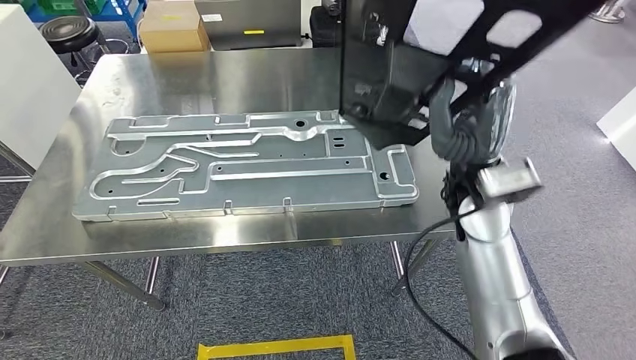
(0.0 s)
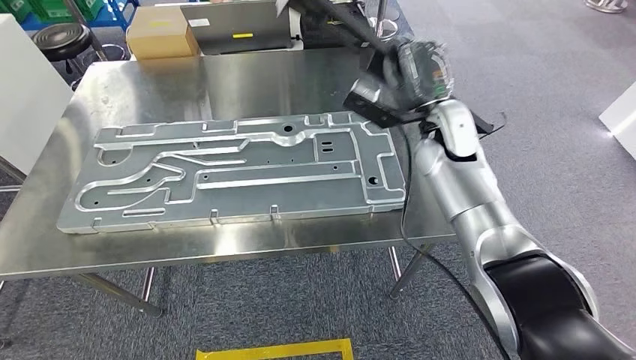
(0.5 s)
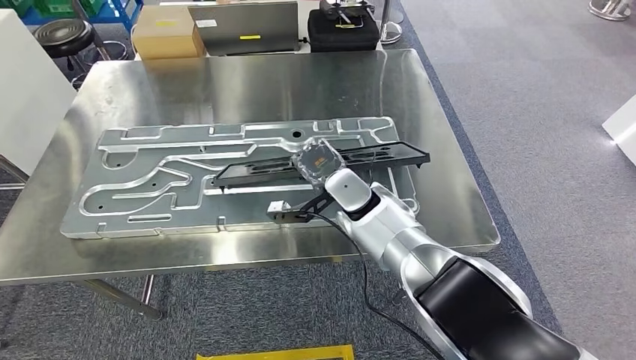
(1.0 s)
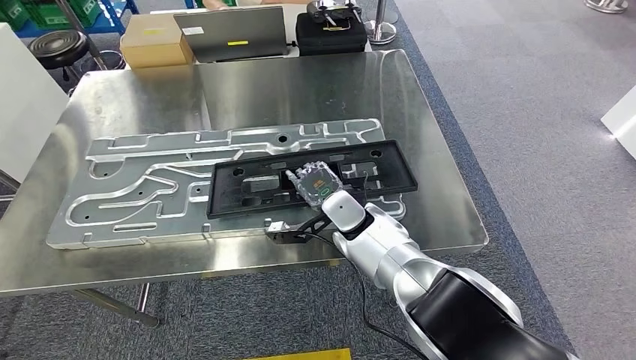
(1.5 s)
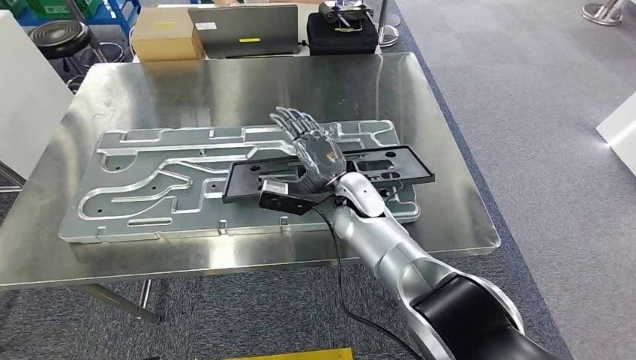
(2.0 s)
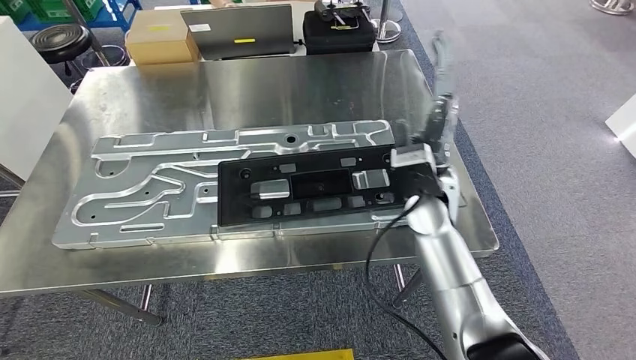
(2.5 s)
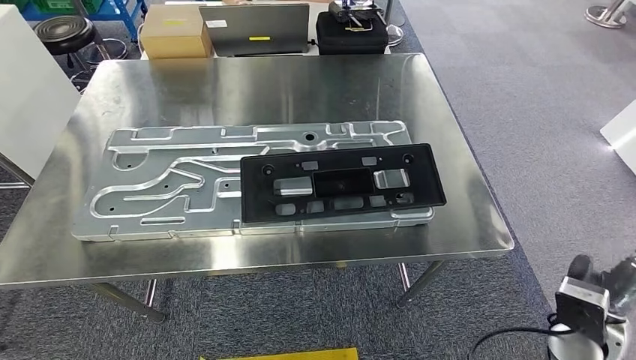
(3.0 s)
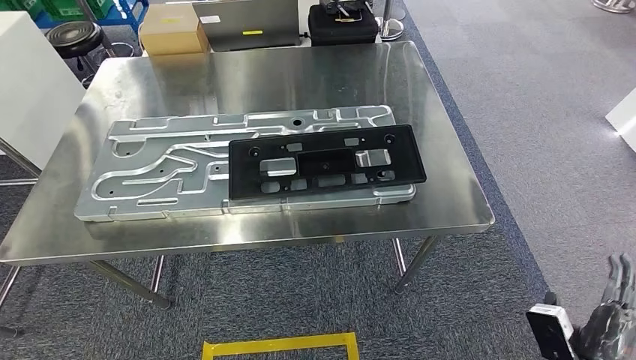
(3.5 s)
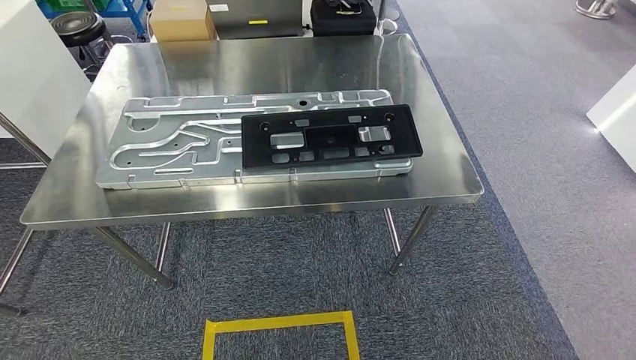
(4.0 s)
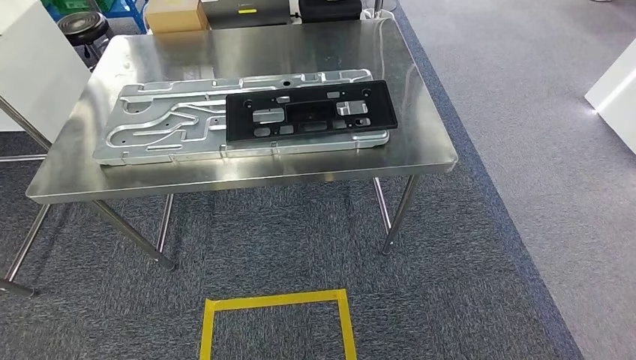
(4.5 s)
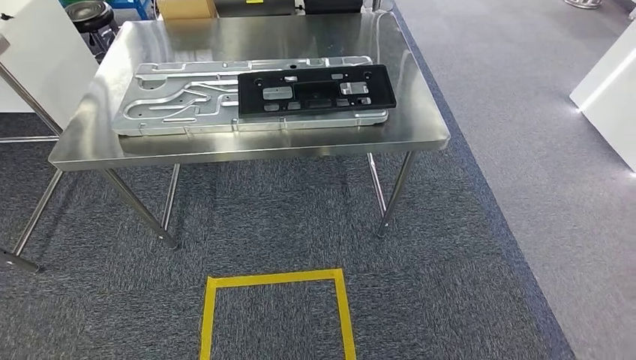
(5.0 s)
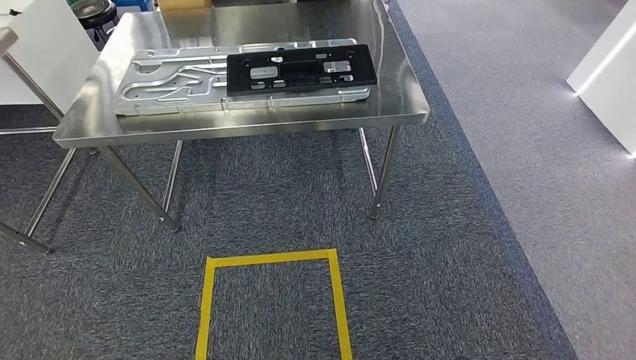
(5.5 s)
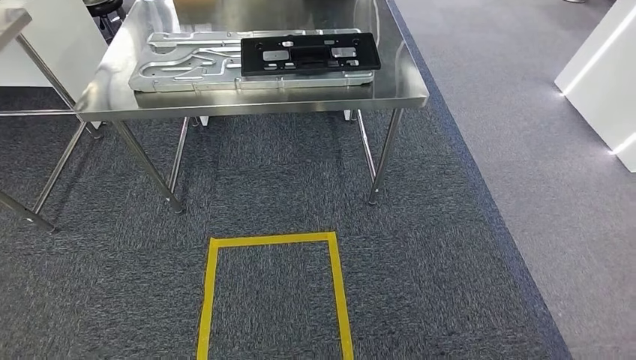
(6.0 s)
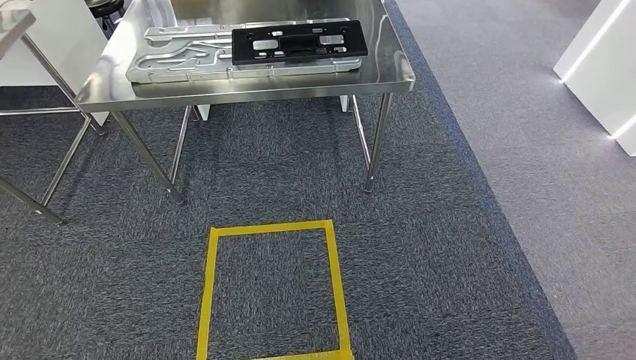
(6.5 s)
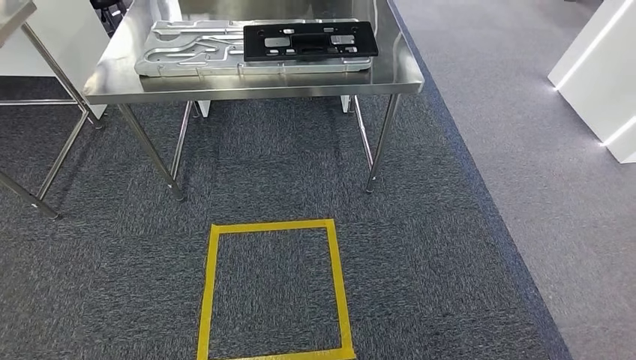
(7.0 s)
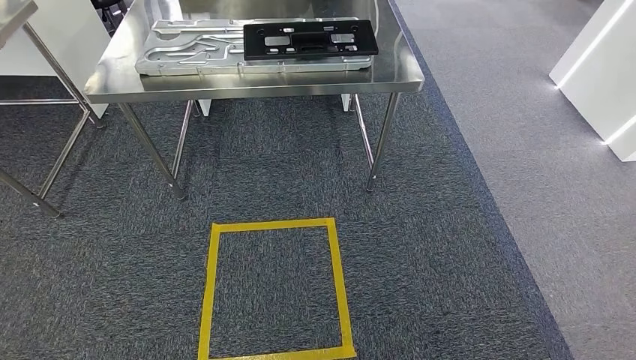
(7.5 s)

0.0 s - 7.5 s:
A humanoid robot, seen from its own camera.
Step, 0.0 s - 2.0 s: Insert the large material into the corresponding slot on the workbench.
Step, 4.0 s - 6.0 s: Move to the initial position of the shelf.
